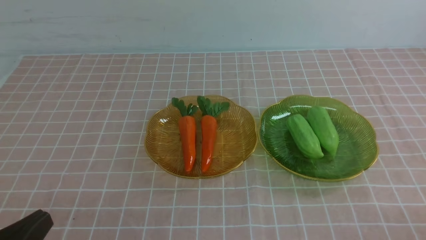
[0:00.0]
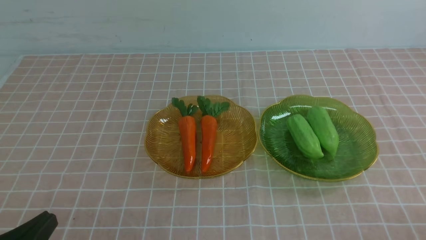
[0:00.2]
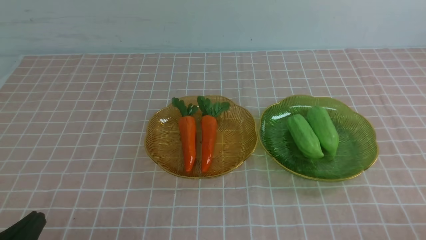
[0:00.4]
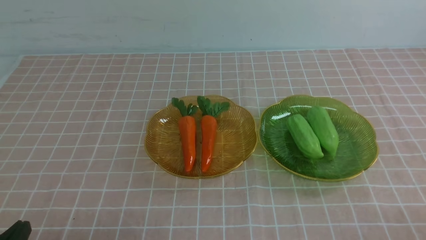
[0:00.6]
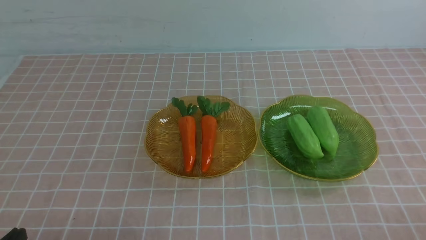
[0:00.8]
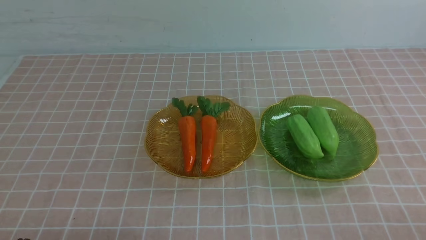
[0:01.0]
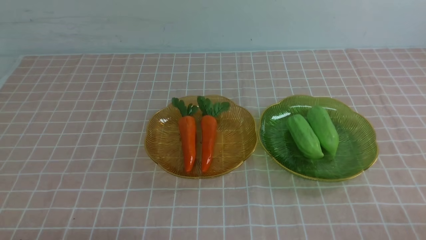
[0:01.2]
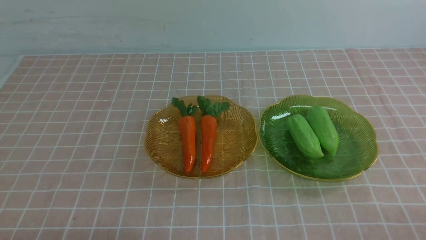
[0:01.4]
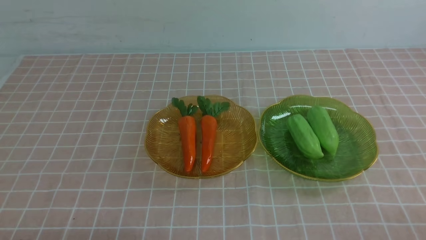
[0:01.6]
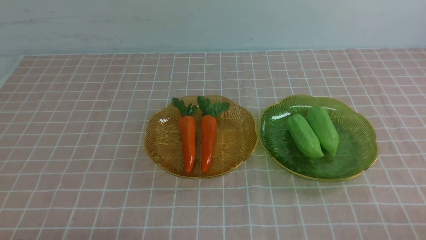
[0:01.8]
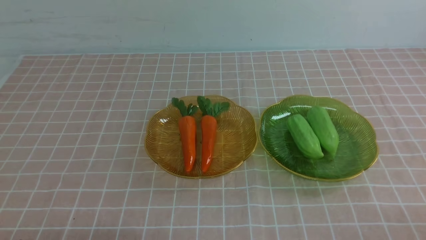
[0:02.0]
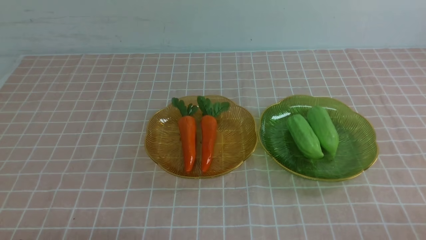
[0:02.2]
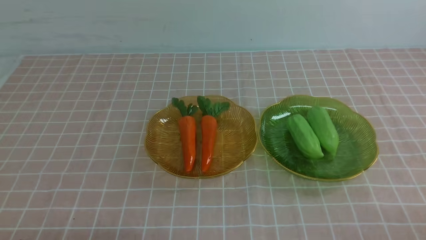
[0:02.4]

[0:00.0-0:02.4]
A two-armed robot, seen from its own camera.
0:00.0 to 0:01.2: The grippers stay close to where they were, moving slightly.
0:01.2 to 0:02.4: Both grippers stay put.
